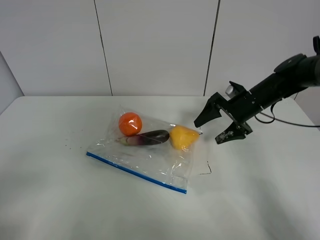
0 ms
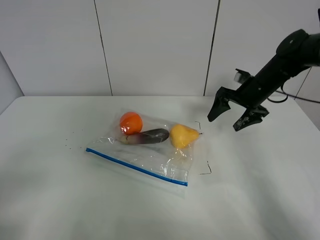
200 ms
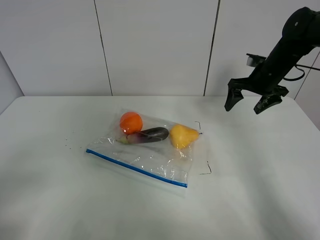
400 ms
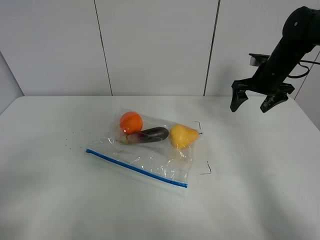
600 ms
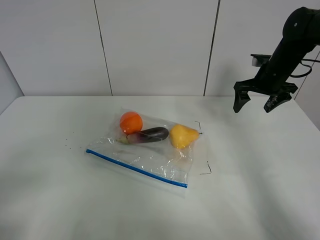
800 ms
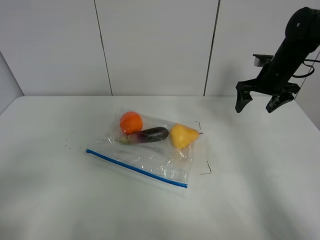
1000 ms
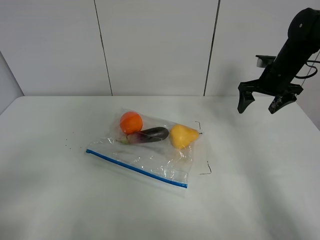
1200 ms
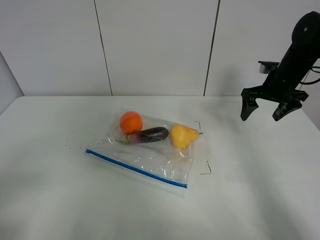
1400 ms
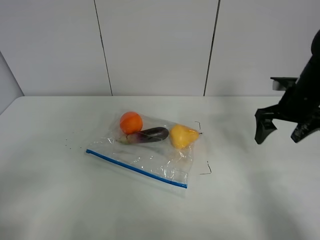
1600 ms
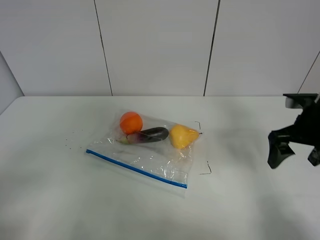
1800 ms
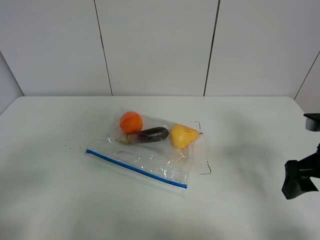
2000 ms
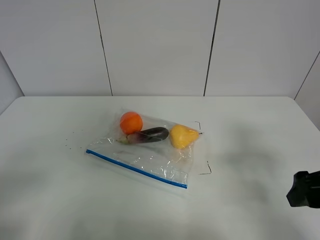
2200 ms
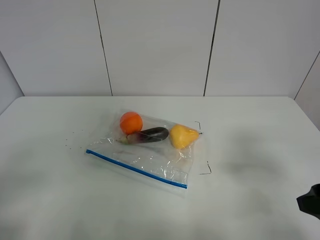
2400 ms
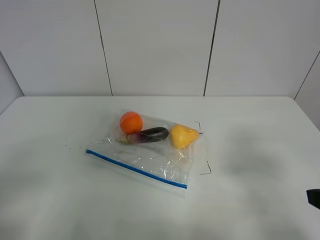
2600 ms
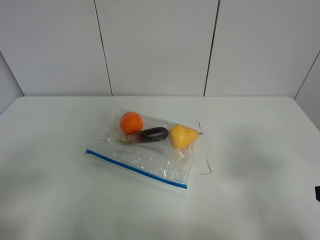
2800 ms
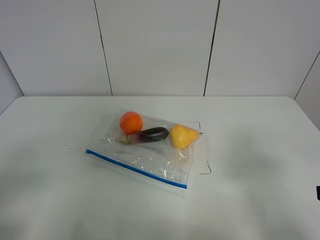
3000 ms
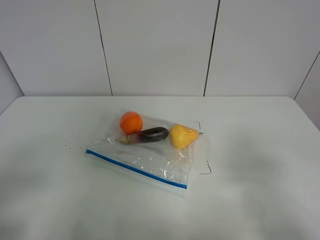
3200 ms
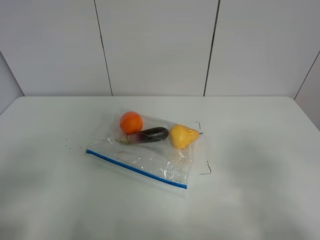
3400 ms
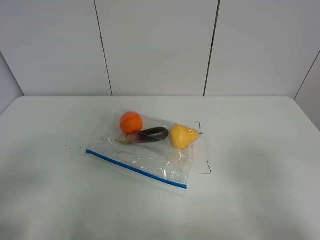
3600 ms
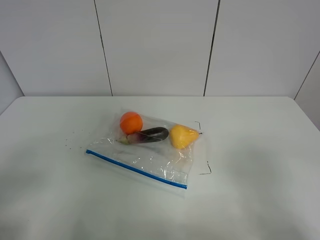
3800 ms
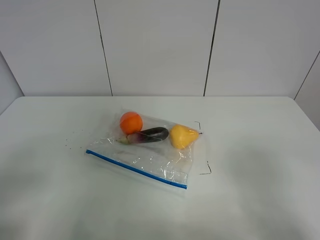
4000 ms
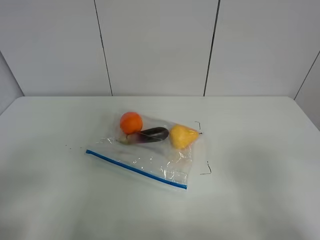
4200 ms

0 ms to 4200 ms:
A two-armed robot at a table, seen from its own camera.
0 ms to 1400 ms: The right gripper heads to the right, covering approximately 5 cm.
1400 ms to 2800 ms: The right gripper moves backward, roughly 35 cm.
